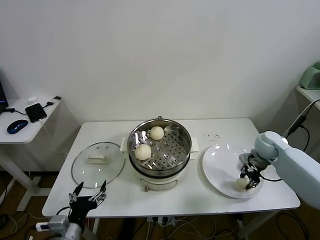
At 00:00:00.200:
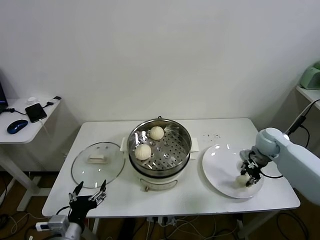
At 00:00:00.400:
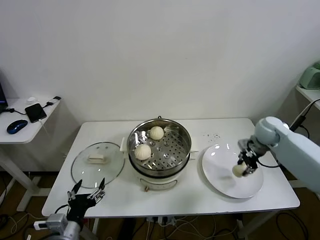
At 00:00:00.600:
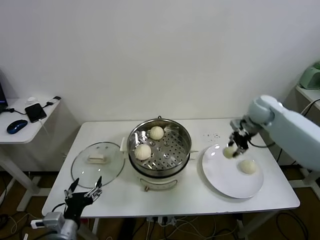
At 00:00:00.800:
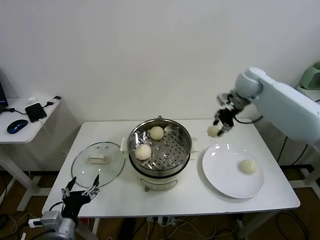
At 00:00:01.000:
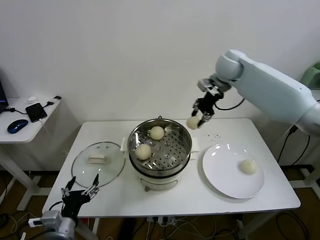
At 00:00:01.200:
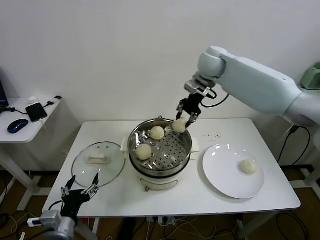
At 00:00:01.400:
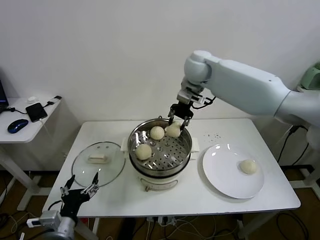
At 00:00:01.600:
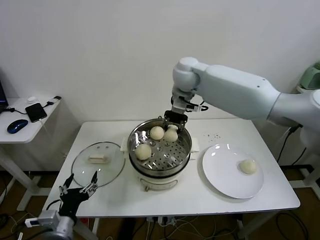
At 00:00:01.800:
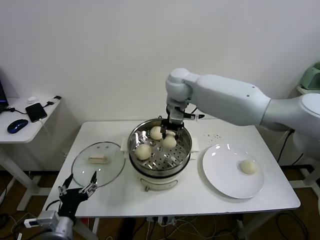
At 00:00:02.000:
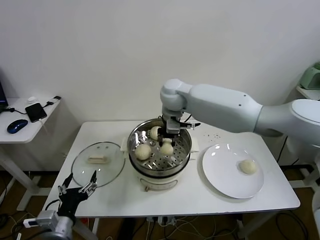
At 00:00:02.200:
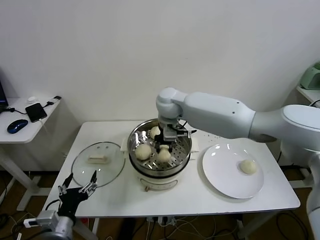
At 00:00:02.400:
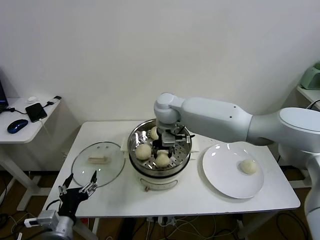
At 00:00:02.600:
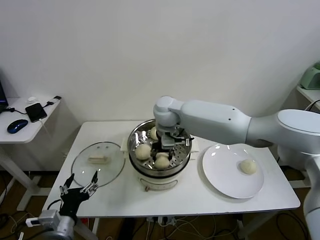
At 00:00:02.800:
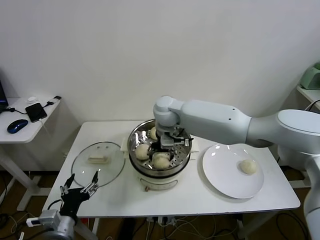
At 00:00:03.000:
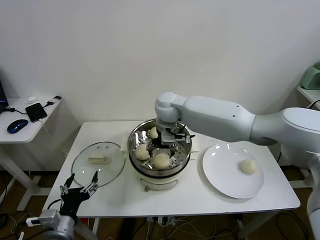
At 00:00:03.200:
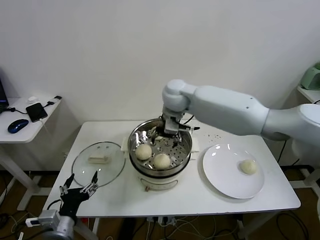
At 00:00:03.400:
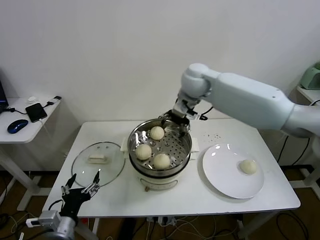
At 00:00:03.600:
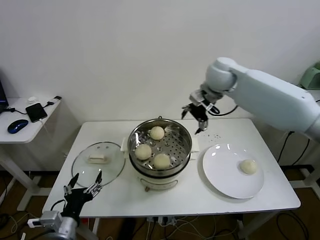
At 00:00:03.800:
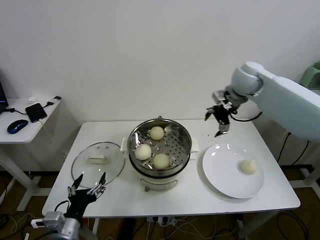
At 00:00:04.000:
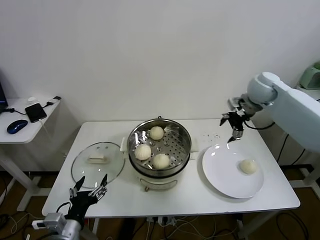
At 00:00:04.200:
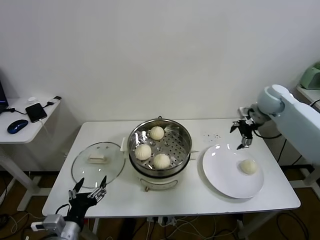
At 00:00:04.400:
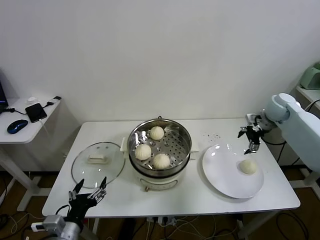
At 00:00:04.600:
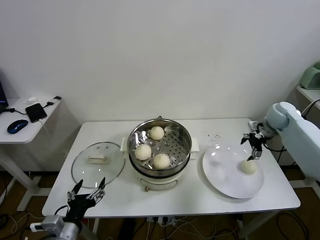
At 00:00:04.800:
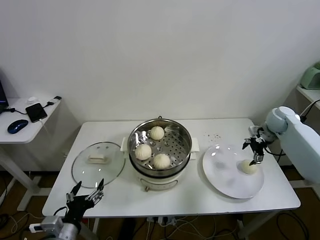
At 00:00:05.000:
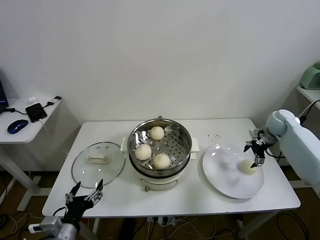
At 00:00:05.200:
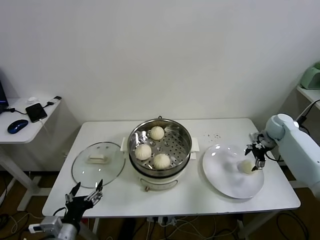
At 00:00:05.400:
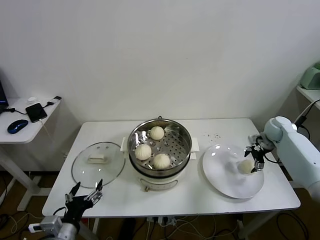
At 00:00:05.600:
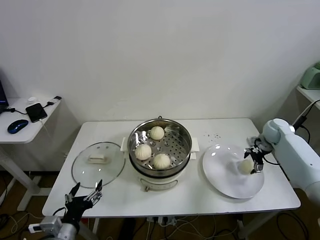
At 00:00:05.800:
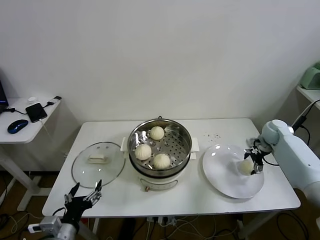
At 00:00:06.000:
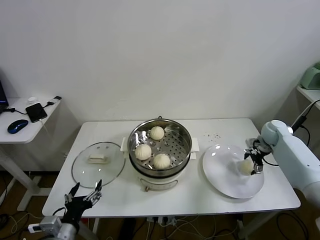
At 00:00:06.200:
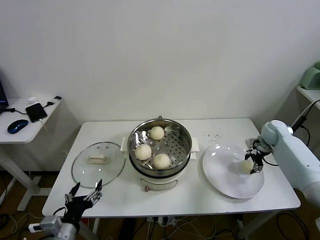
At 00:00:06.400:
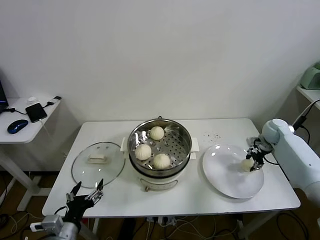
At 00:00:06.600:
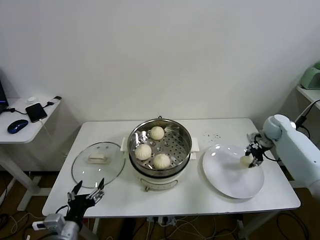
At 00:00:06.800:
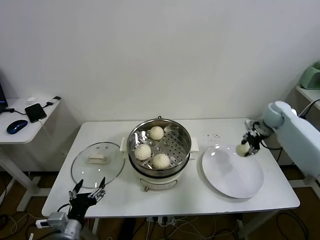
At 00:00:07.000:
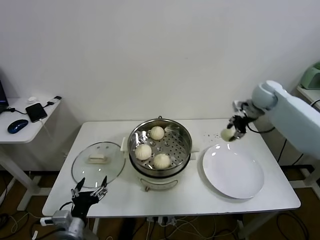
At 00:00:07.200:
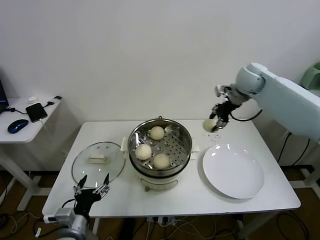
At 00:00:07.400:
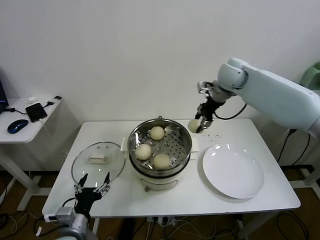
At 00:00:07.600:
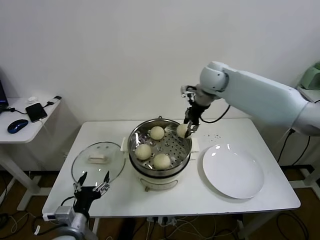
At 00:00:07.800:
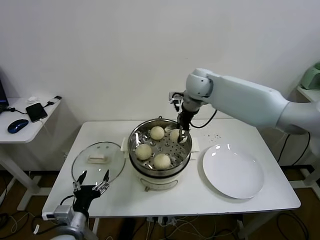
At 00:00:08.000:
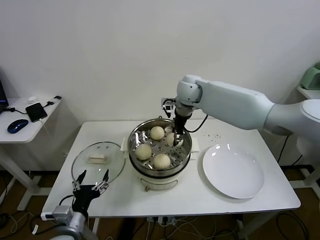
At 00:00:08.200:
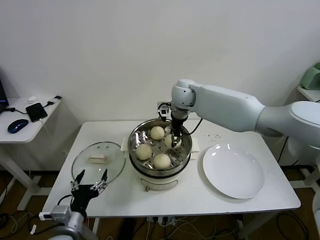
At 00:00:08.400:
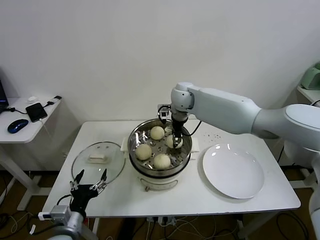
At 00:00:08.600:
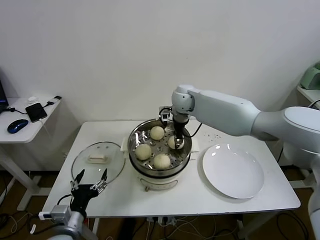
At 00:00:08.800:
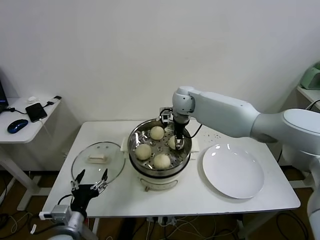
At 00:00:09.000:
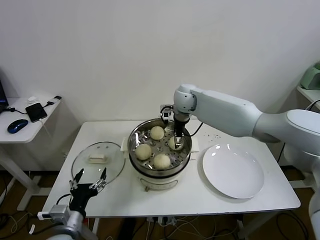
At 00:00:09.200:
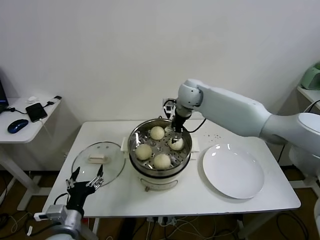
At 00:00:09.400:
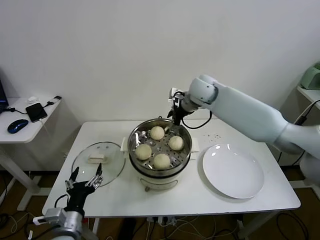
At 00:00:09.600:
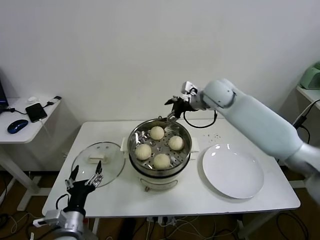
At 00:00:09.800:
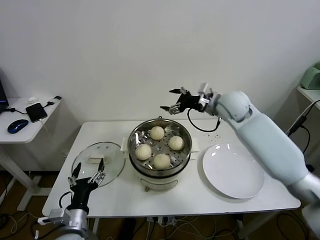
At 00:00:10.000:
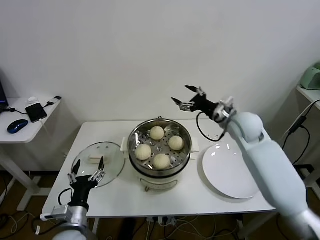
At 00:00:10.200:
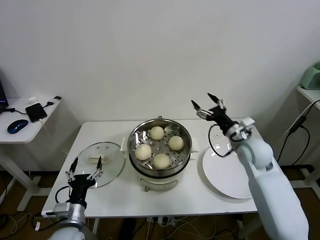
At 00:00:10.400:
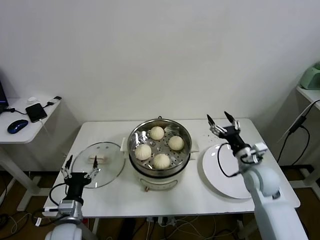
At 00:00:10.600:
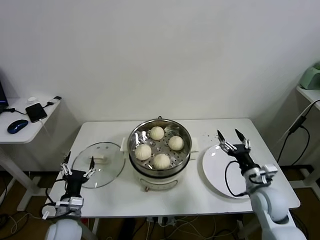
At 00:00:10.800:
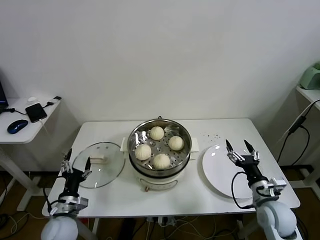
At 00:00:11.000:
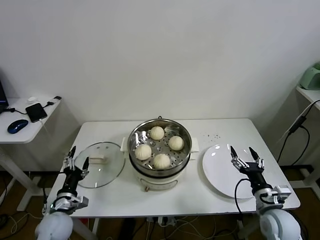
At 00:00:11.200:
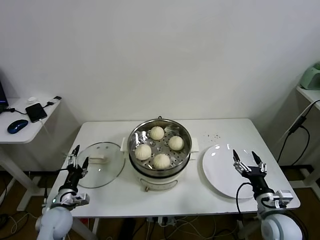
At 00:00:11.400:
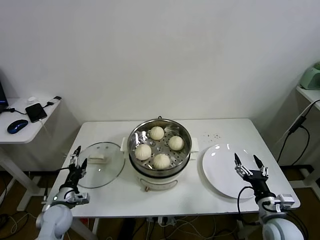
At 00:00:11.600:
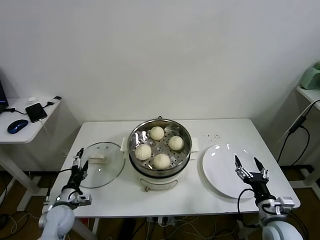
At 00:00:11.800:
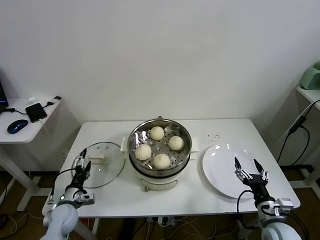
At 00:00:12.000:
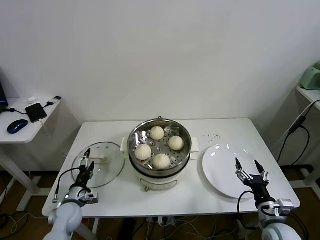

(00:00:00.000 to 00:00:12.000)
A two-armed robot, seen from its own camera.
Task of the whole recording: take steamed baozi put them in steamer.
Step, 00:00:00.000 - 00:00:02.800: Place the baozi on the steamer with right gripper.
Step, 00:00:03.200 - 00:00:06.200: Grasp the baozi in the plate with right gripper.
Step, 00:00:06.600 - 00:00:08.800: Place the baozi on the steamer with right gripper.
00:00:00.000 - 00:00:01.600: The right gripper heads to the left and upward, covering roughly 40 cm.
00:00:01.600 - 00:00:03.000: The right gripper moves downward and to the left, some 10 cm, and opens its fingers.
00:00:03.000 - 00:00:04.400: The right gripper goes about 40 cm to the right.
00:00:04.400 - 00:00:06.000: The right gripper heads downward, covering about 15 cm.
00:00:06.000 - 00:00:07.600: The right gripper heads to the left and upward, covering approximately 35 cm, and closes up.
00:00:07.600 - 00:00:09.000: The right gripper shifts about 10 cm downward and to the left, and opens its fingers.
00:00:09.000 - 00:00:10.400: The left gripper moves about 5 cm. Meanwhile the right gripper moves to the right, backward and downward, approximately 35 cm.
00:00:10.400 - 00:00:12.000: The left gripper heads forward, downward and to the left, covering about 15 cm, while the right gripper goes roughly 20 cm backward and downward.

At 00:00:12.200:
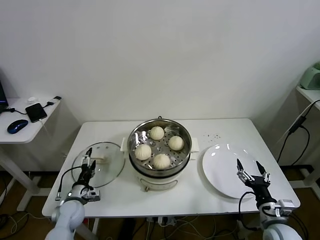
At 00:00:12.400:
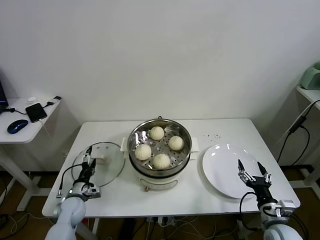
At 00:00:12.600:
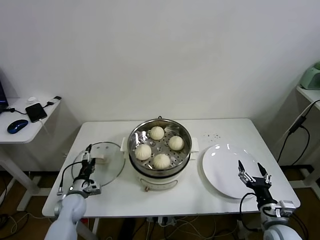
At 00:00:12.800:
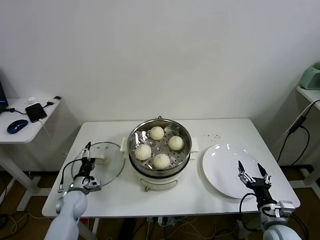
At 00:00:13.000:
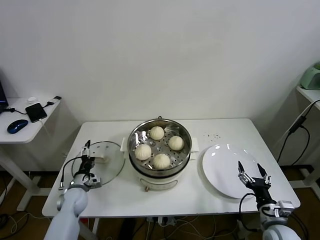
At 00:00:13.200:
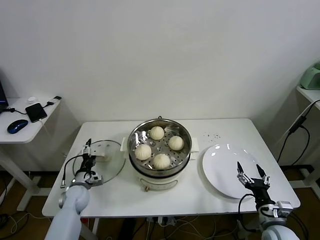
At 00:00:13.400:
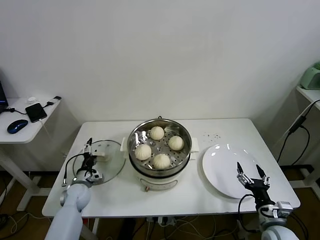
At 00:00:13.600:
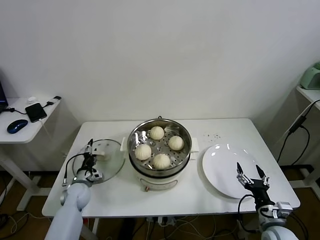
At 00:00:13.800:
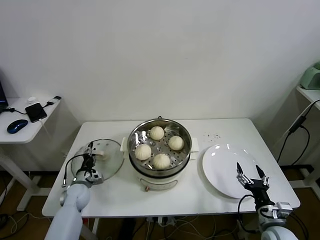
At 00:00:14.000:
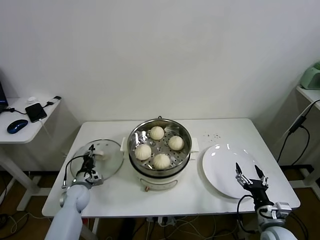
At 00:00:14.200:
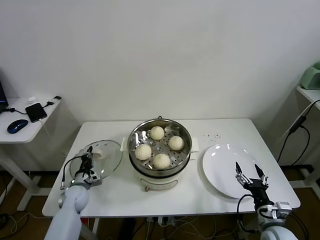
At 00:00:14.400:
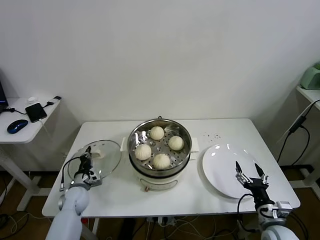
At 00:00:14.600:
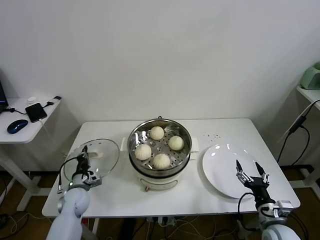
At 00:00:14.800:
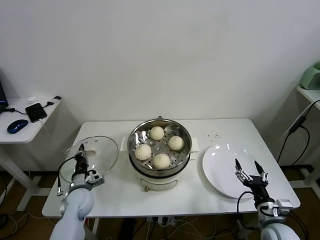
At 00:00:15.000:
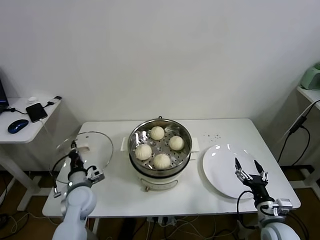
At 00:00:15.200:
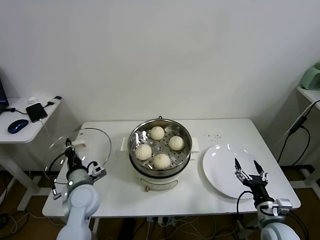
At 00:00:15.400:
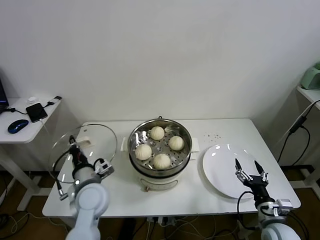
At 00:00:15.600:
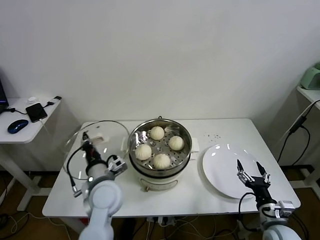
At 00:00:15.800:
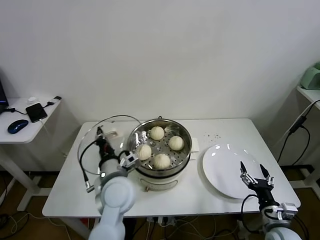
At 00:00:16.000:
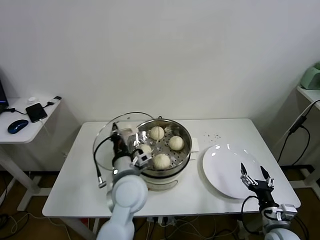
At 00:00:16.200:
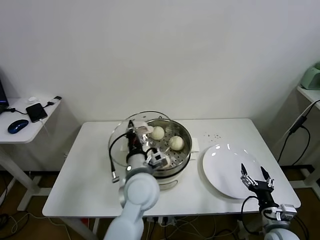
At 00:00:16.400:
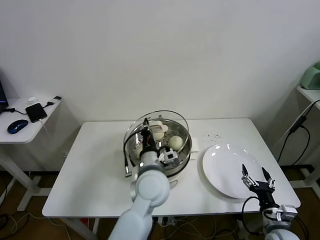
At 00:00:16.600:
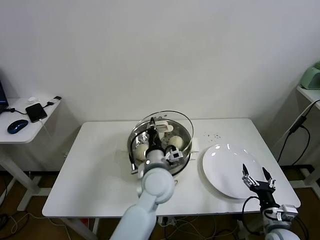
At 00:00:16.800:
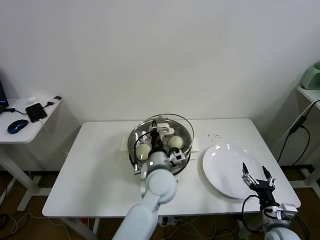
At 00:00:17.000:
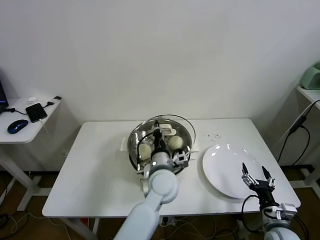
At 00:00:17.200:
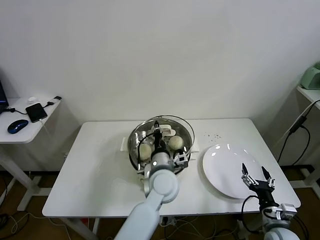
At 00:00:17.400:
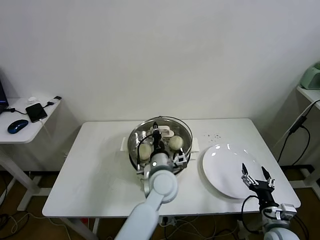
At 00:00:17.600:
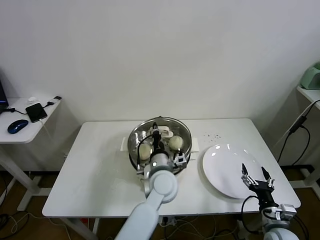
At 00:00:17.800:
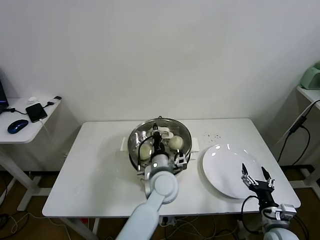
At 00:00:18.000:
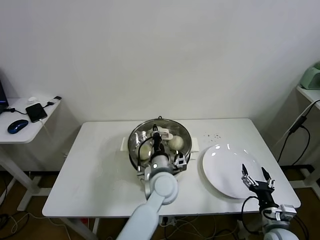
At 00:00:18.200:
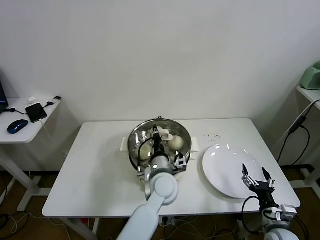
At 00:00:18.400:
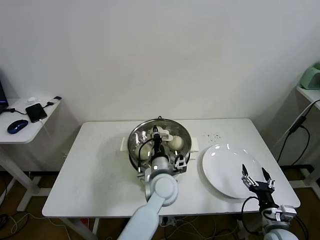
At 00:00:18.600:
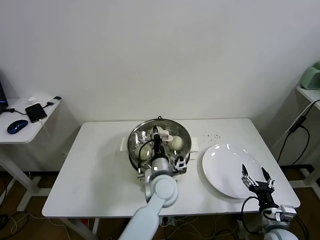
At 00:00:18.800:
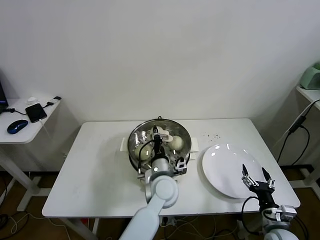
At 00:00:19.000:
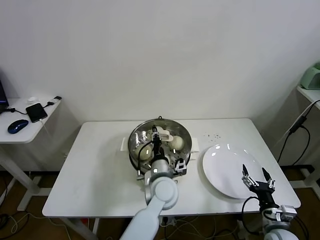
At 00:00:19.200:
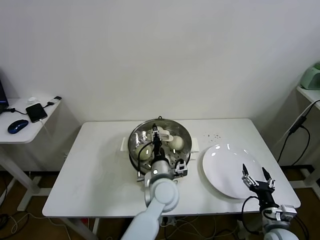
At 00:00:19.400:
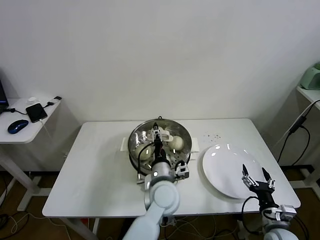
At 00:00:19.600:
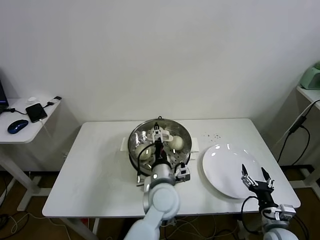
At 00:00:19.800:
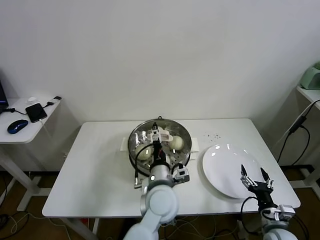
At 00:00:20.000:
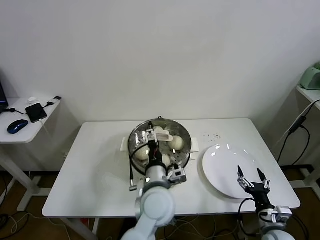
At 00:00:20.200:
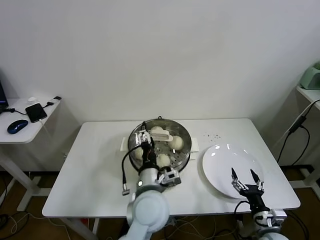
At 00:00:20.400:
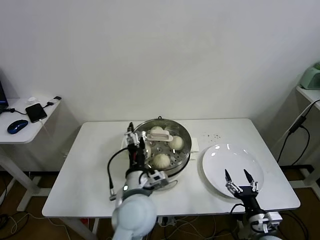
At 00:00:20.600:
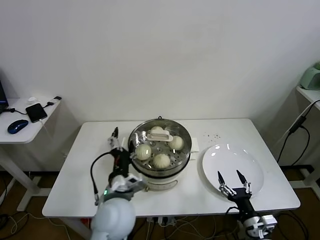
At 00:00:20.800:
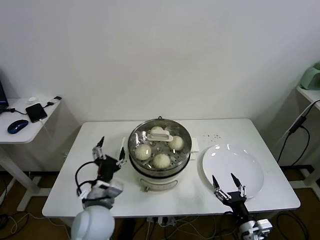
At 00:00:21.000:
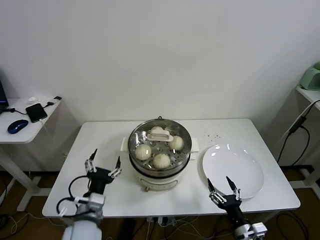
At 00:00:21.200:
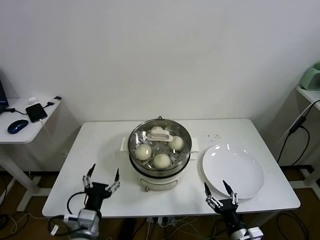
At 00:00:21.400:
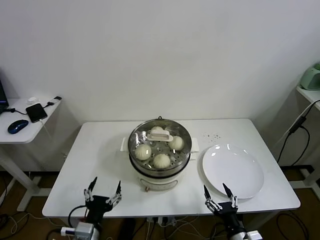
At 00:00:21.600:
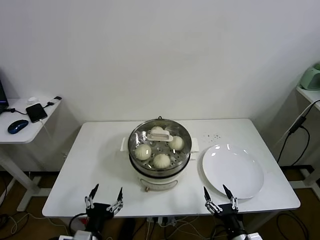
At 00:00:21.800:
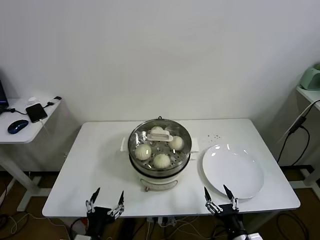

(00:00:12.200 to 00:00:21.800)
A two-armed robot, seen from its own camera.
Task of the whole recording: take steamed baozi put them in steamer.
Step, 00:00:14.400 - 00:00:19.200: Place the pot lid on the steamer with left gripper.
00:00:12.200 - 00:00:13.800: The left gripper is displaced forward by roughly 5 cm, and closes up.
00:00:13.800 - 00:00:15.400: The left gripper goes some 20 cm upward, to the right and backward, and closes up.
00:00:15.400 - 00:00:17.000: The left gripper moves to the right, roughly 20 cm.
00:00:17.000 - 00:00:18.600: There are only small adjustments of the grippers.
00:00:18.600 - 00:00:20.200: The left gripper moves backward and upward, approximately 10 cm, and opens up.
00:00:20.200 - 00:00:21.800: The right gripper moves to the left and backward, some 10 cm; the left gripper travels to the left, backward and downward by approximately 25 cm.
